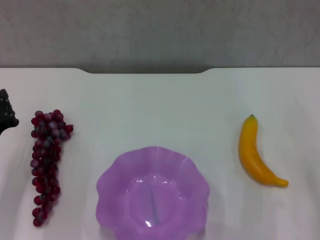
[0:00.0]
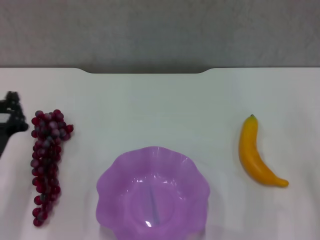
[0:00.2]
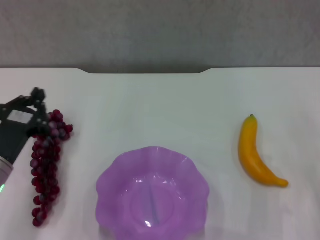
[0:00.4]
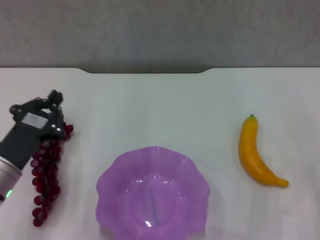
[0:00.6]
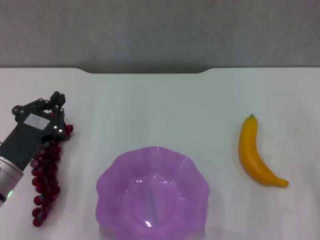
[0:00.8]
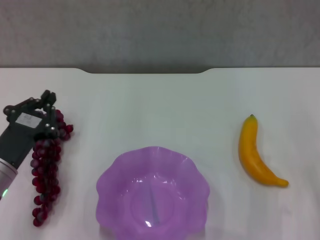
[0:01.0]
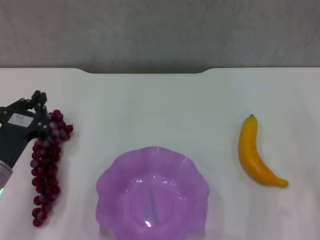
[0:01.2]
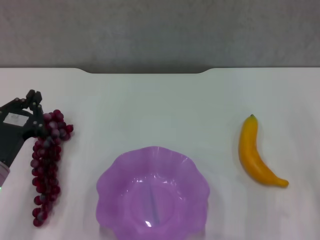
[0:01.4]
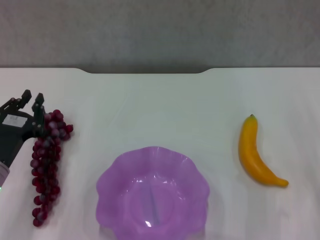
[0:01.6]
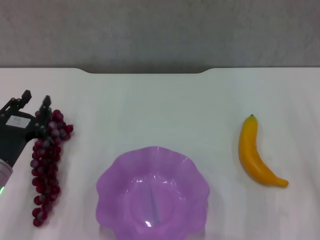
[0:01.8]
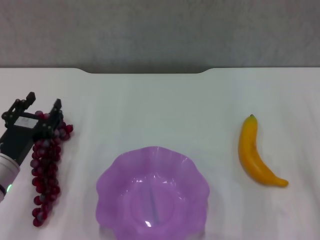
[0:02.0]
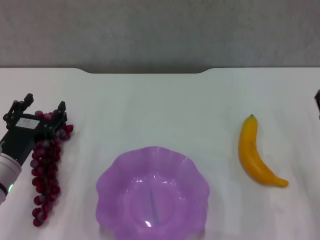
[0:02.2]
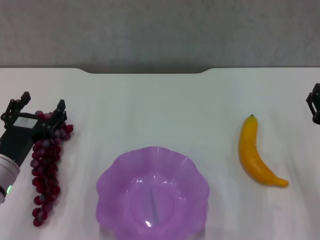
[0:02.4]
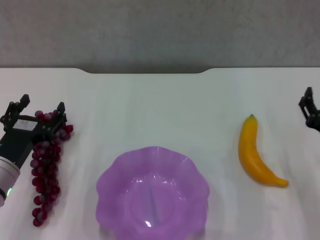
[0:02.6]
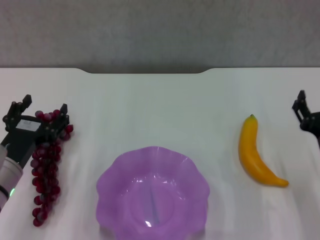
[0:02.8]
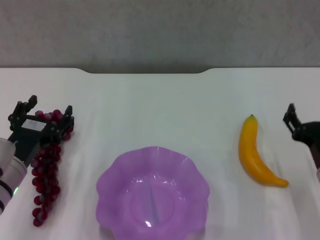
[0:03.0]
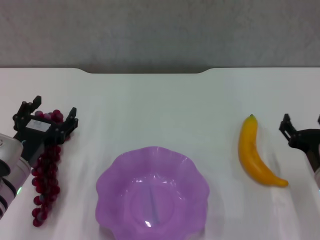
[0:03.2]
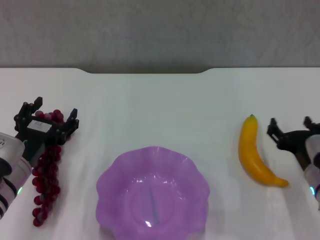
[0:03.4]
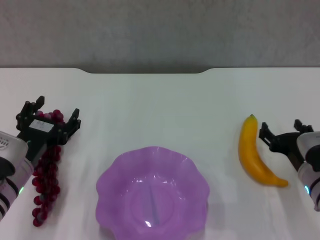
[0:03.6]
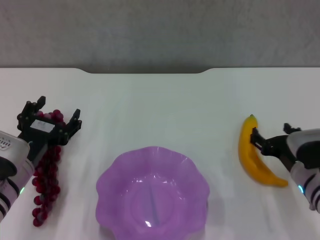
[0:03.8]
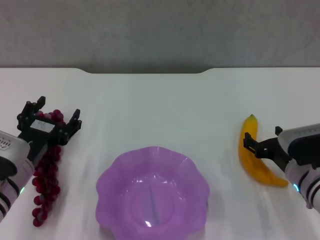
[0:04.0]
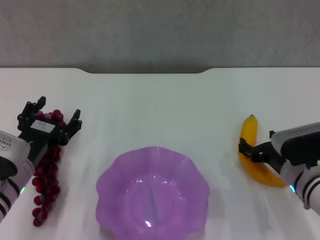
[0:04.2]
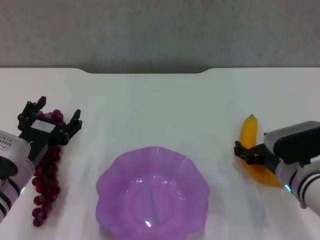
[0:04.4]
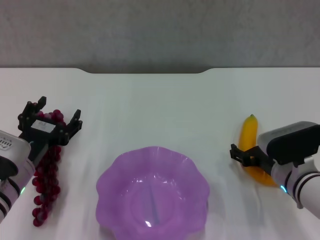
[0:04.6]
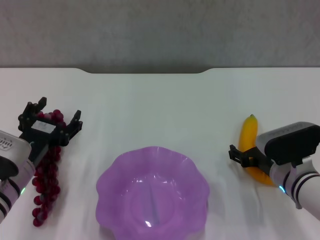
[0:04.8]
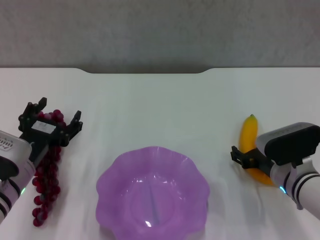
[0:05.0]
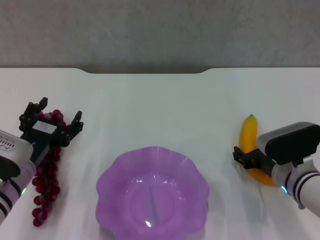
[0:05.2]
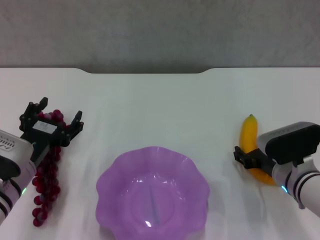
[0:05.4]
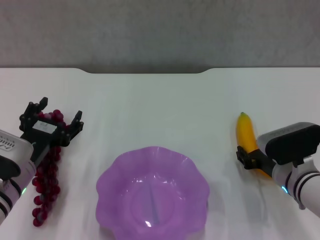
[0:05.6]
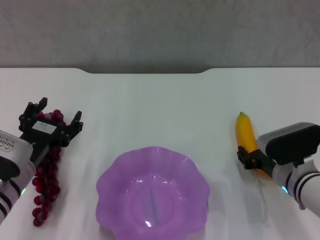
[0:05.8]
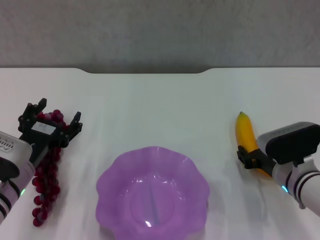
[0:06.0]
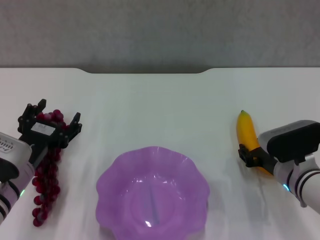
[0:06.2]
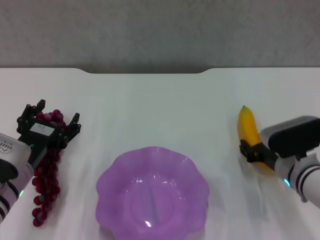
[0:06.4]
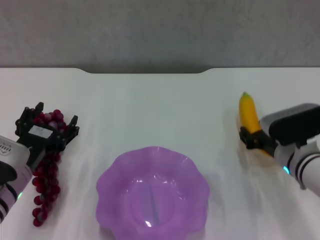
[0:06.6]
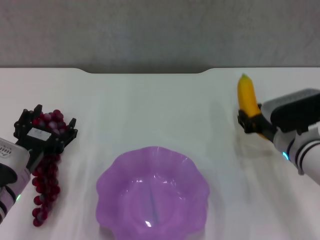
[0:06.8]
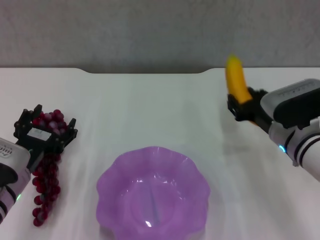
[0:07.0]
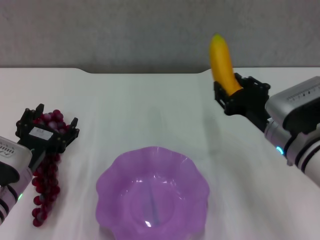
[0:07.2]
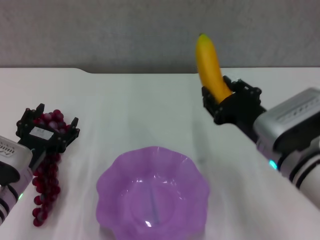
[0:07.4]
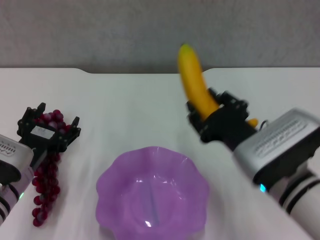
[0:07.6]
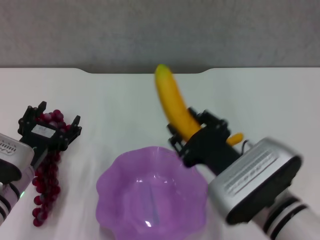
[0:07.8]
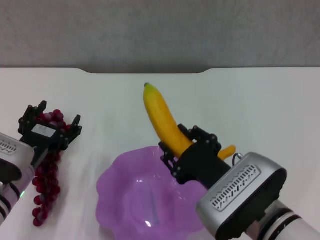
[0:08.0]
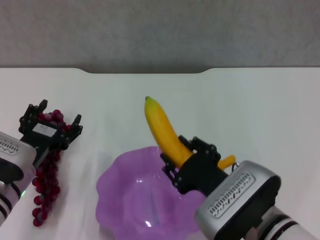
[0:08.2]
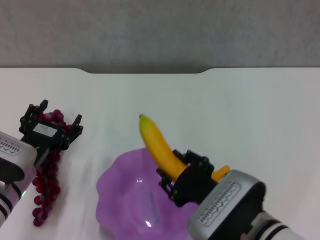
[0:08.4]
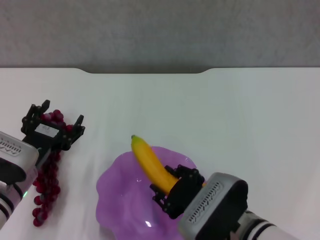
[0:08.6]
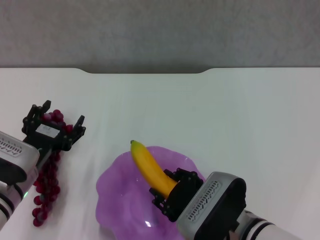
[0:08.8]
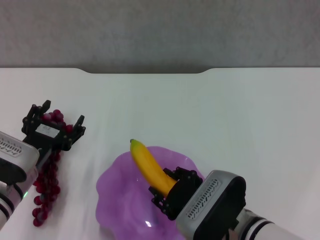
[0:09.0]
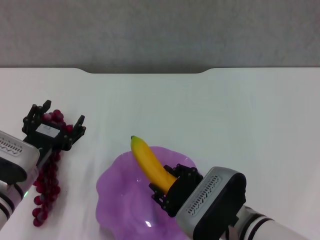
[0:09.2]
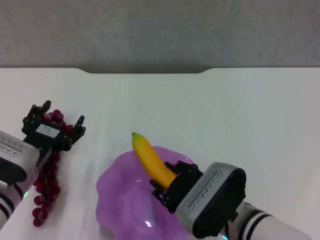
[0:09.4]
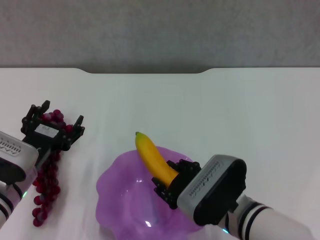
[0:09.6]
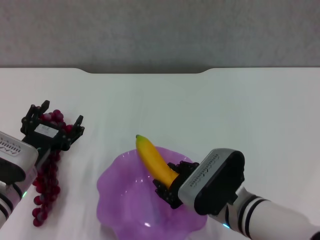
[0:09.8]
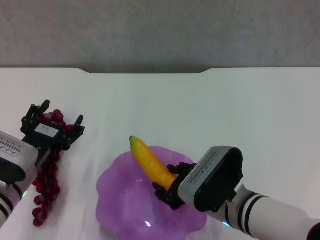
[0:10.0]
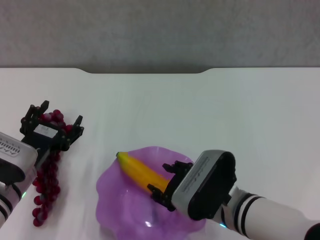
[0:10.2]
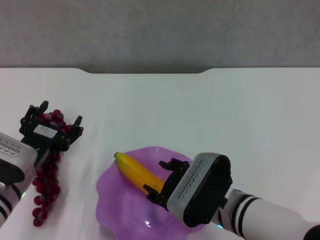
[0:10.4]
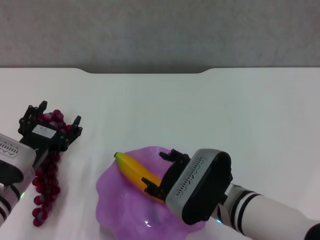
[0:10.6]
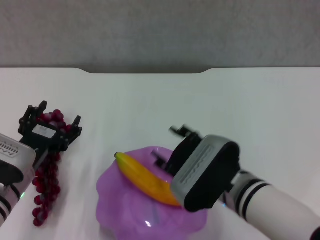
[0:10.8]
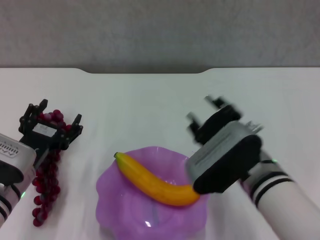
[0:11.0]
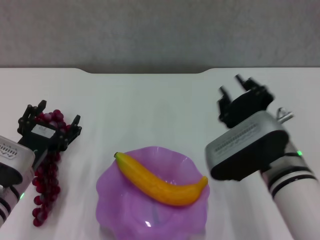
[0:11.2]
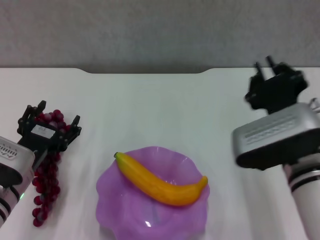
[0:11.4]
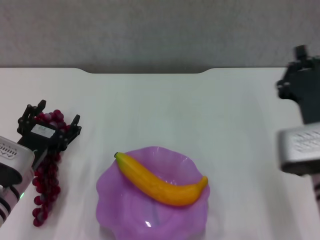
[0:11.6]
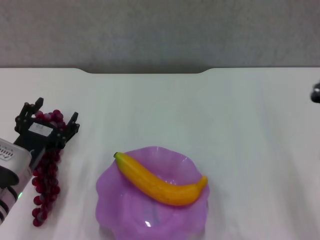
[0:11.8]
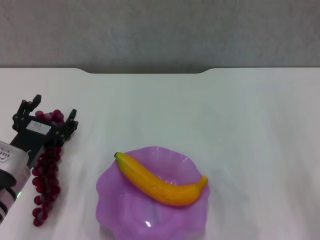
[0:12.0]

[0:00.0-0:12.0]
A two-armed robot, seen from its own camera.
Step, 0:00.0 to 0:06.0: Grasp the banana with right gripper.
Step, 0:06.2 to 0:10.4: Place the banana in the purple plate with right gripper.
0:01.6 to 0:03.0: The left gripper opens its fingers. Meanwhile the right gripper opens up.
0:03.0 to 0:04.4: The right gripper moves approximately 5 cm.
0:04.4 to 0:06.0: The right gripper closes up.
0:06.0 to 0:07.6: The right gripper moves upward, to the left and backward, roughly 15 cm.
0:07.6 to 0:09.0: The right gripper shifts roughly 5 cm downward.
0:09.0 to 0:10.4: There are only small adjustments of the grippers.
0:10.4 to 0:12.0: The right gripper is displaced to the right by approximately 15 cm, and closes.

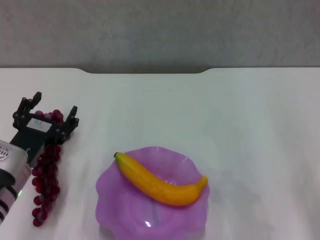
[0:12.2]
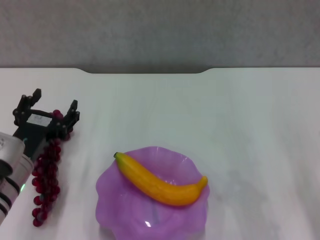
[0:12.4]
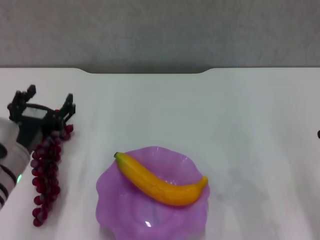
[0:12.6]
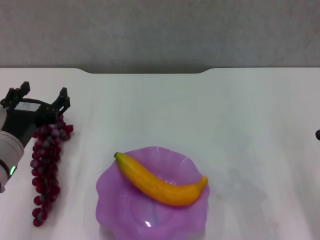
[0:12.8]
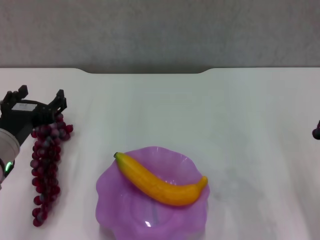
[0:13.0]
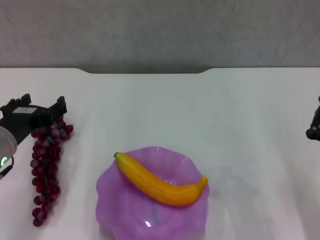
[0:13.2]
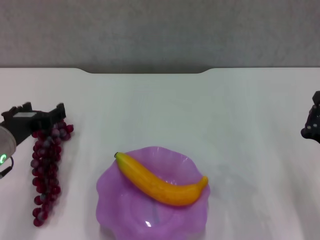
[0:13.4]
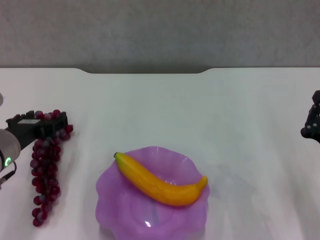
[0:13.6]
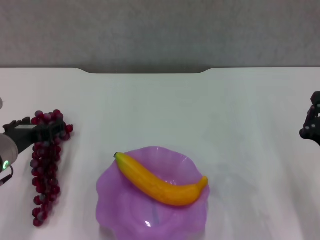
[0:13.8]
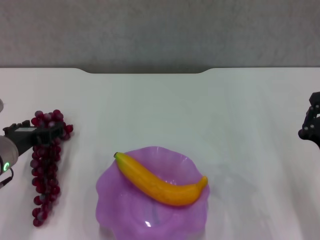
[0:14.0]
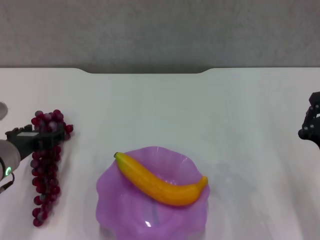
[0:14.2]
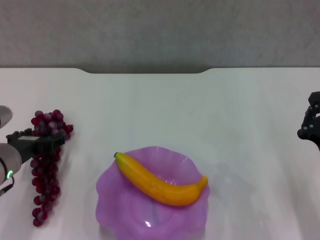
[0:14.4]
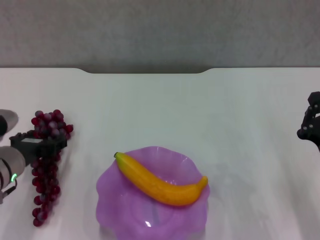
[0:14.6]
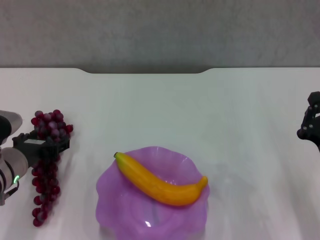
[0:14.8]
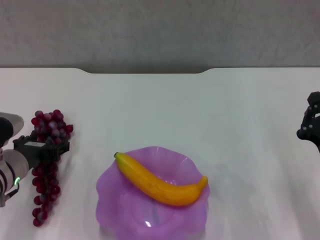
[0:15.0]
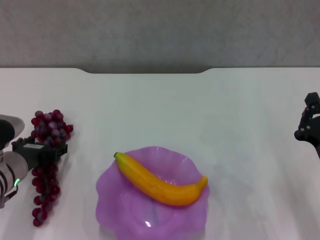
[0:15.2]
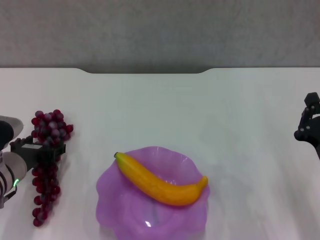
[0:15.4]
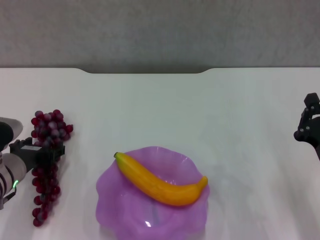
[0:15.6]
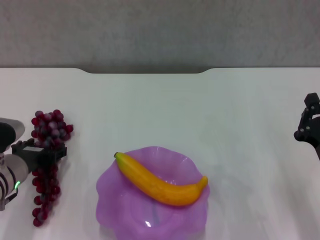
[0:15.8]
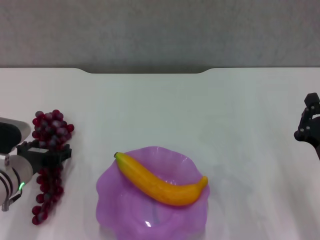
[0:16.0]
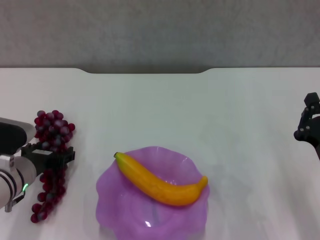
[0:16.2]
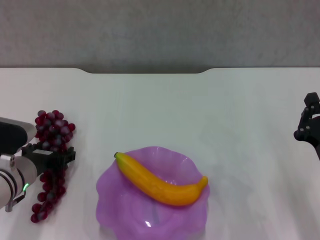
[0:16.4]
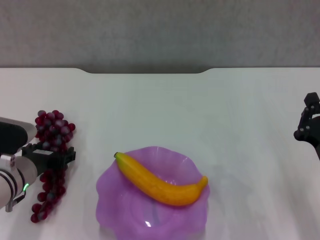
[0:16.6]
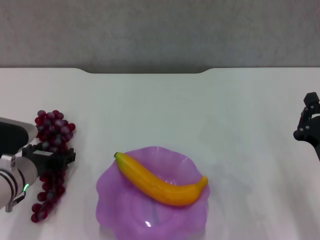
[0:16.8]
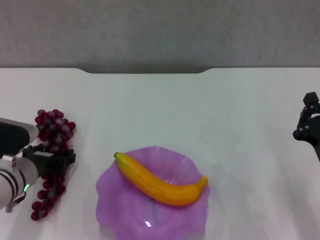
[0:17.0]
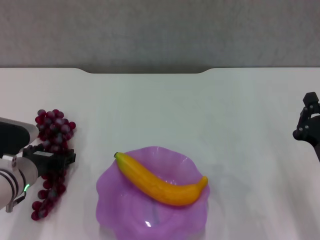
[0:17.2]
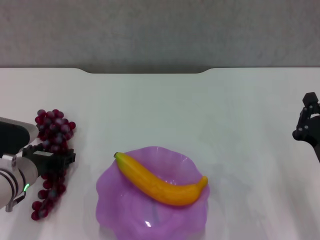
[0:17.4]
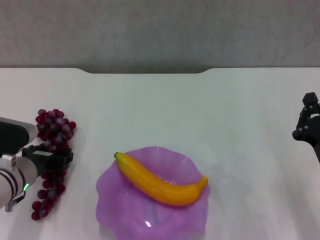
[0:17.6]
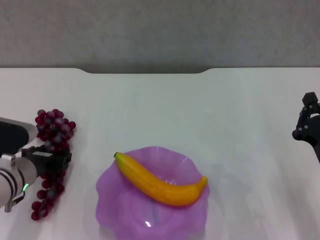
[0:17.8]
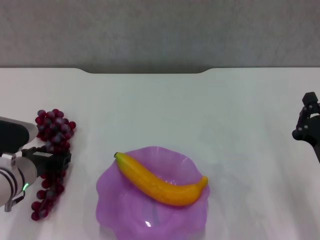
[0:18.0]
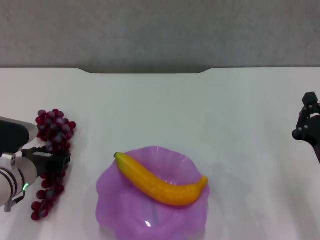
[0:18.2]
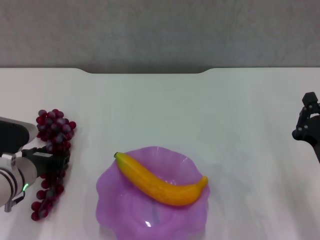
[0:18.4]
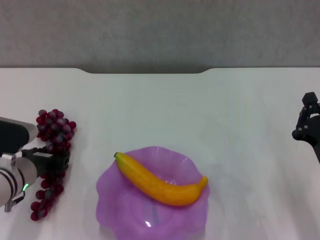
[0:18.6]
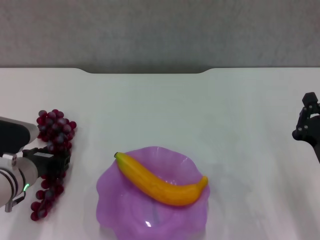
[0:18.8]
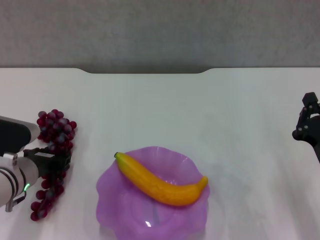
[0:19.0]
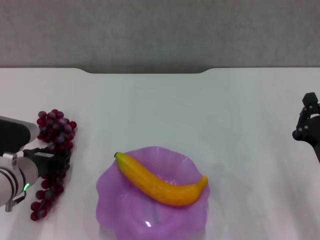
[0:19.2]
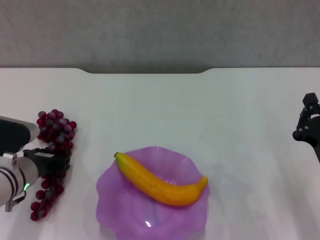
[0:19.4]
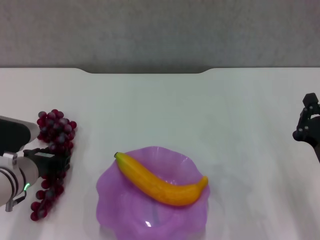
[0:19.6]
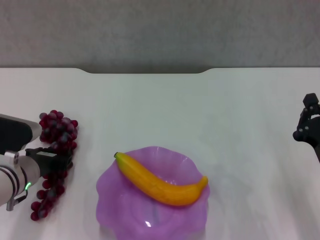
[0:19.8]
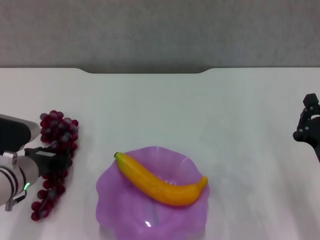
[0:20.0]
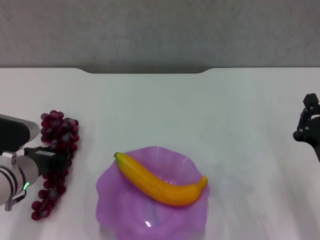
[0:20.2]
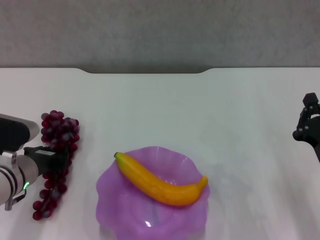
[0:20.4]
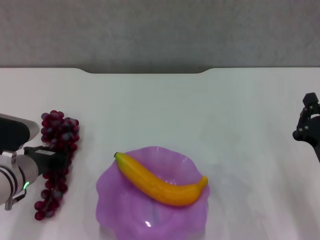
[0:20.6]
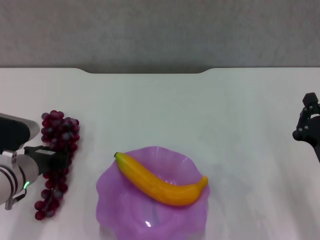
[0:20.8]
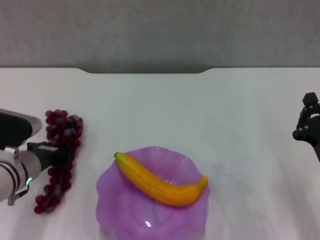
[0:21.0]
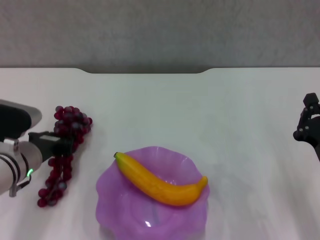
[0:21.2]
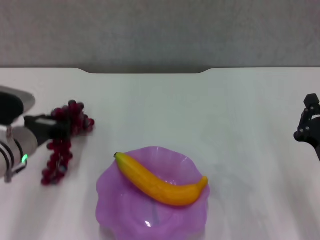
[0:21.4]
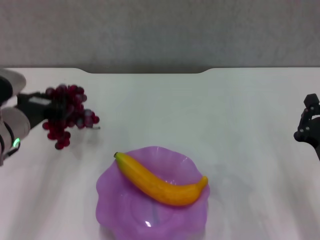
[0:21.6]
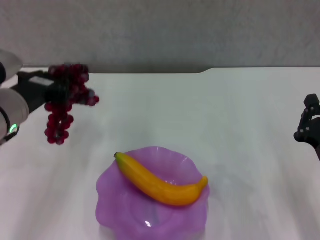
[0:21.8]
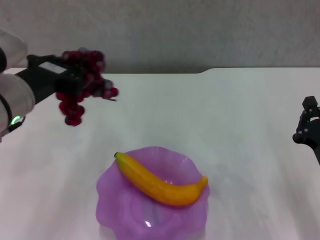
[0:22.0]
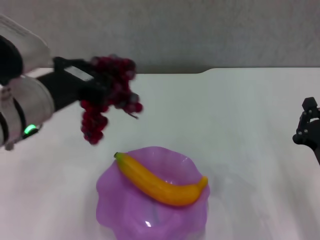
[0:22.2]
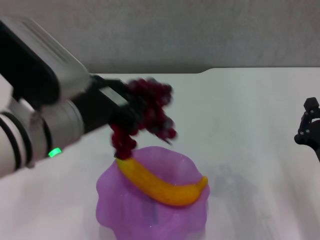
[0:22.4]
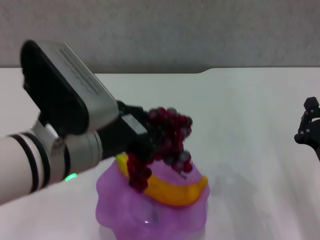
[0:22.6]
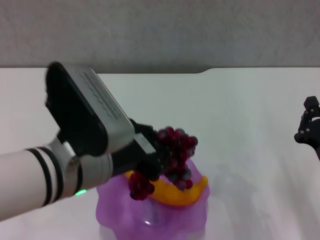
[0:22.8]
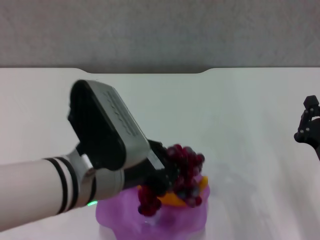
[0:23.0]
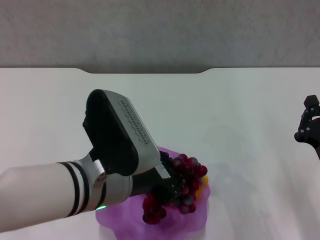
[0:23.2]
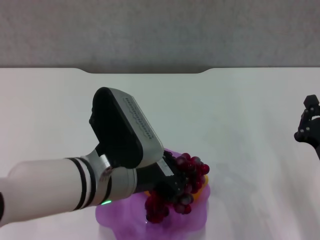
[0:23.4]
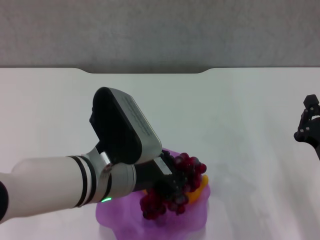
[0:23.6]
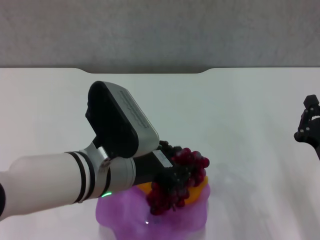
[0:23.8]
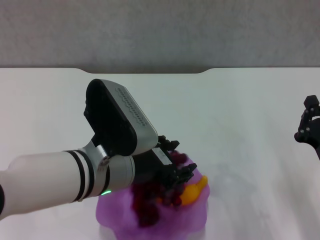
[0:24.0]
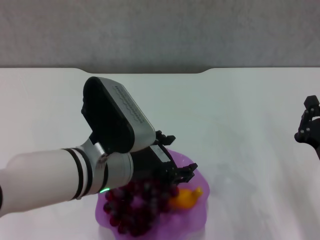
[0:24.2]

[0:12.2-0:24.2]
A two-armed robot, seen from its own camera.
Step, 0:12.2 to 0:19.8: Grasp the grape with left gripper.
0:12.2 to 0:13.8: The left gripper shifts by about 5 cm.
0:13.8 to 0:16.6: The grippers make only small movements.
0:16.6 to 0:19.8: The two grippers keep their place.
0:19.8 to 0:21.2: The grippers stay close to where they were, moving slightly.
0:21.2 to 0:22.6: The left gripper heads upward, to the right and backward, covering roughly 20 cm.
0:22.6 to 0:24.2: The left gripper moves downward, approximately 5 cm, and opens.
